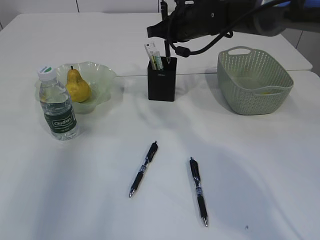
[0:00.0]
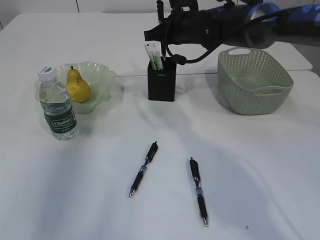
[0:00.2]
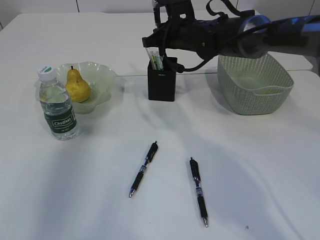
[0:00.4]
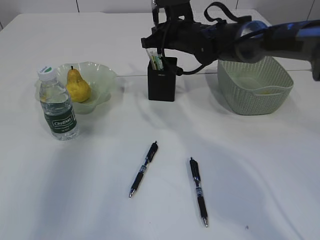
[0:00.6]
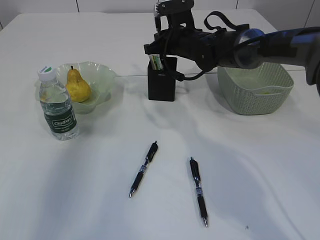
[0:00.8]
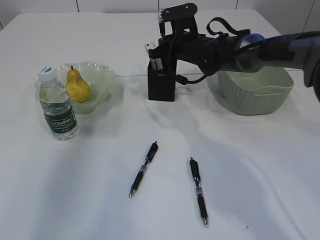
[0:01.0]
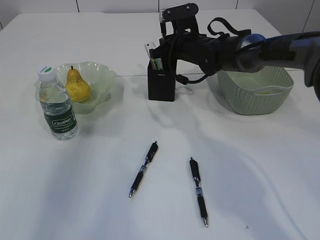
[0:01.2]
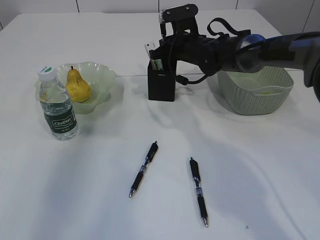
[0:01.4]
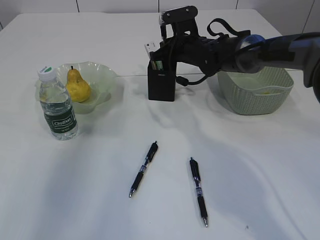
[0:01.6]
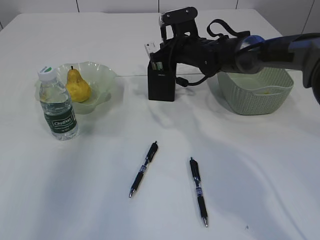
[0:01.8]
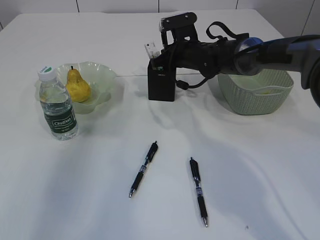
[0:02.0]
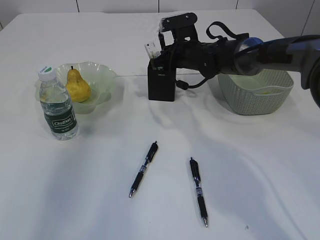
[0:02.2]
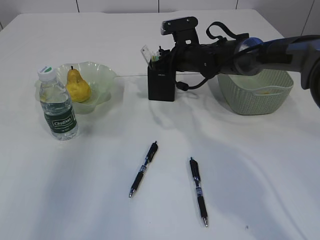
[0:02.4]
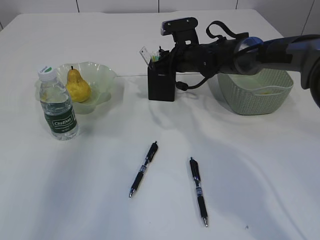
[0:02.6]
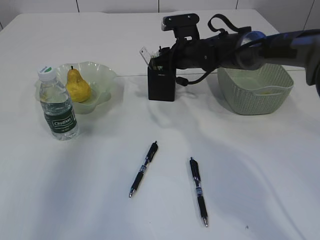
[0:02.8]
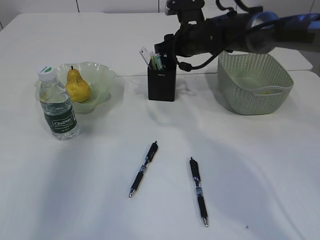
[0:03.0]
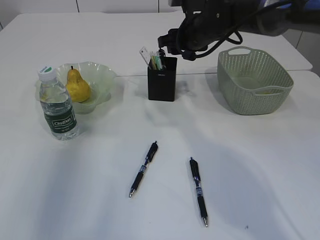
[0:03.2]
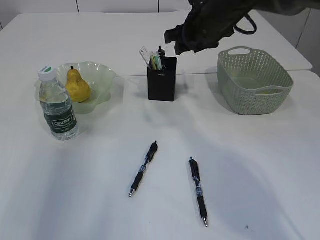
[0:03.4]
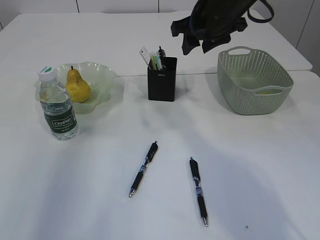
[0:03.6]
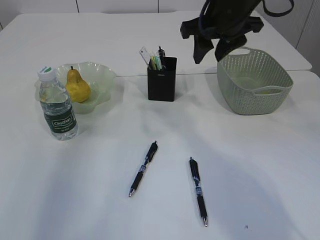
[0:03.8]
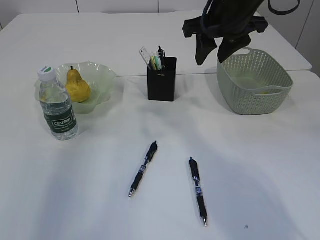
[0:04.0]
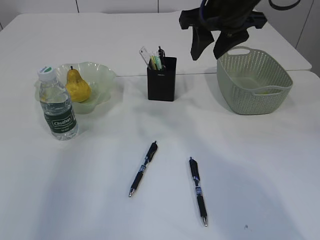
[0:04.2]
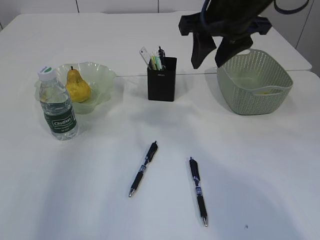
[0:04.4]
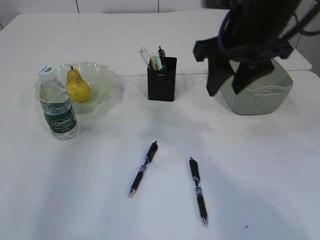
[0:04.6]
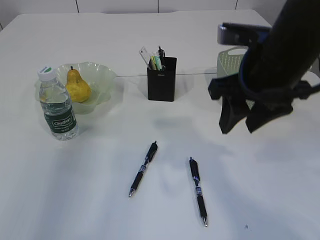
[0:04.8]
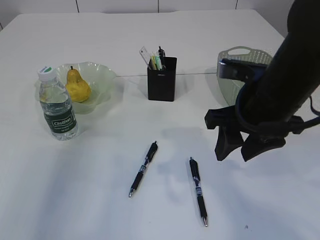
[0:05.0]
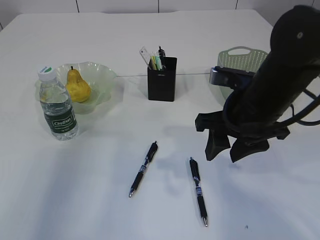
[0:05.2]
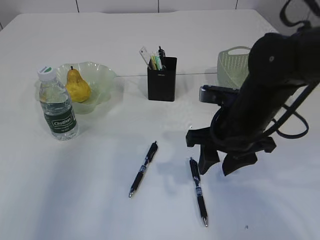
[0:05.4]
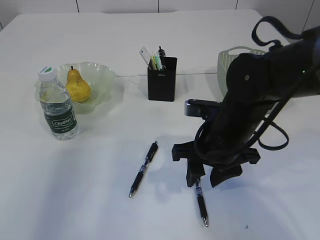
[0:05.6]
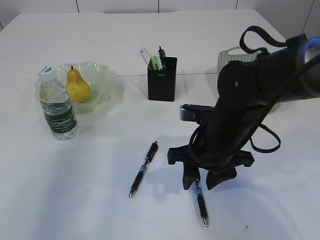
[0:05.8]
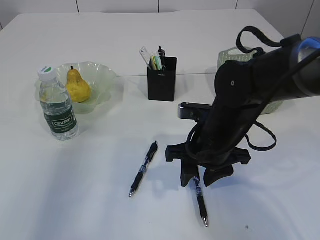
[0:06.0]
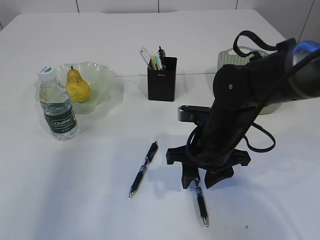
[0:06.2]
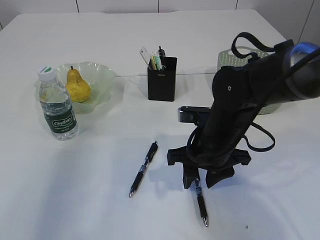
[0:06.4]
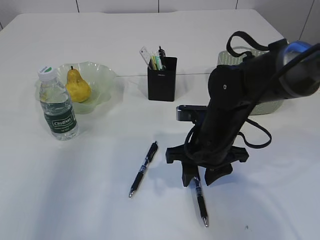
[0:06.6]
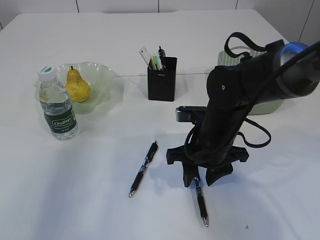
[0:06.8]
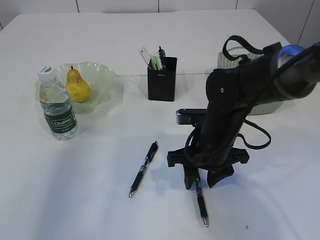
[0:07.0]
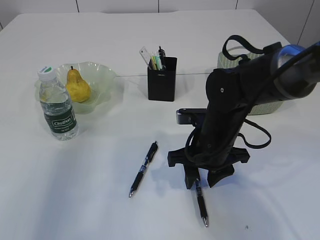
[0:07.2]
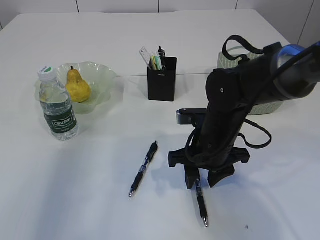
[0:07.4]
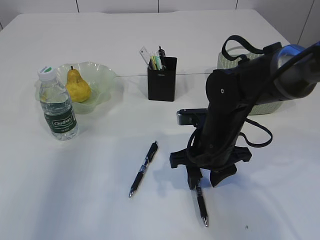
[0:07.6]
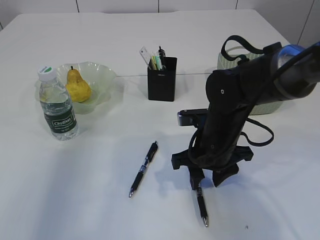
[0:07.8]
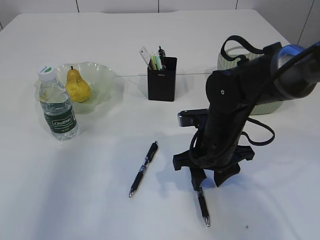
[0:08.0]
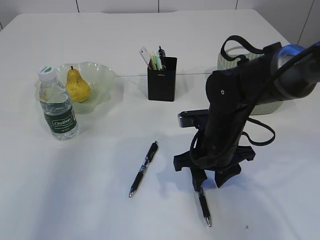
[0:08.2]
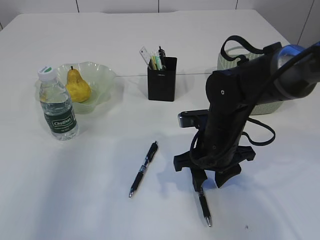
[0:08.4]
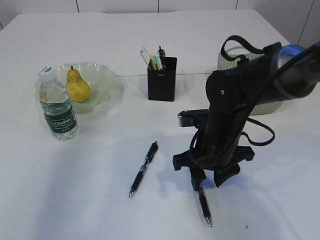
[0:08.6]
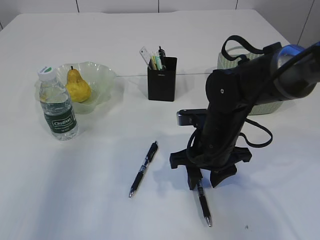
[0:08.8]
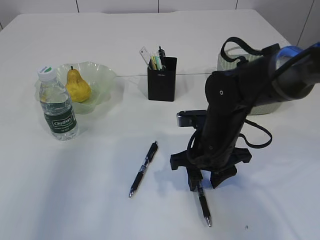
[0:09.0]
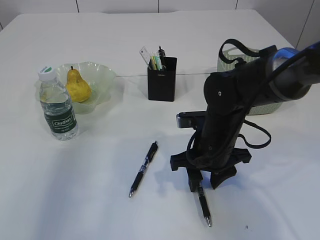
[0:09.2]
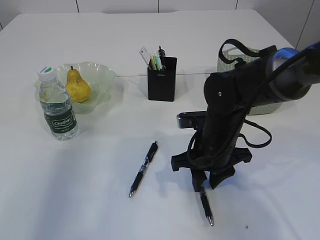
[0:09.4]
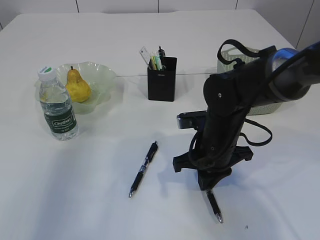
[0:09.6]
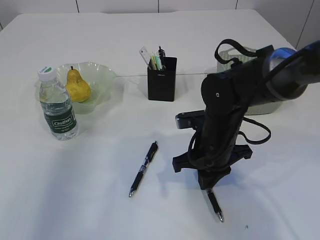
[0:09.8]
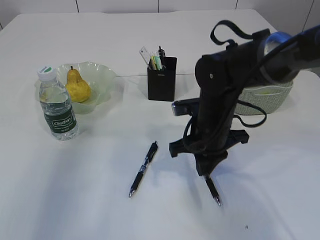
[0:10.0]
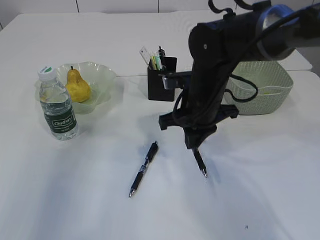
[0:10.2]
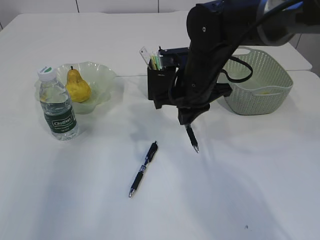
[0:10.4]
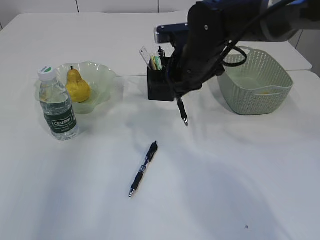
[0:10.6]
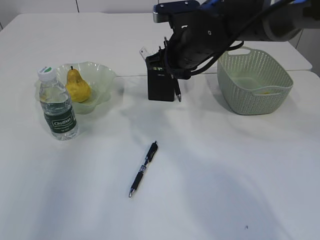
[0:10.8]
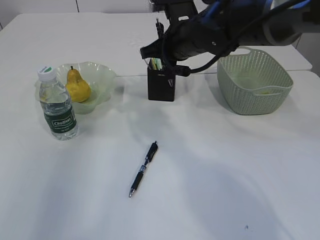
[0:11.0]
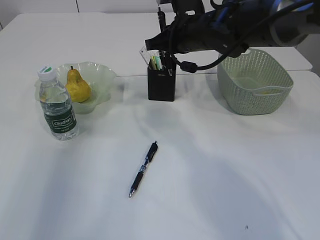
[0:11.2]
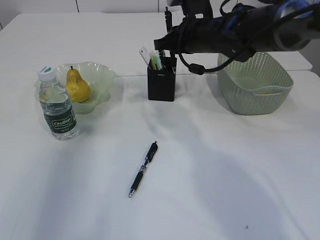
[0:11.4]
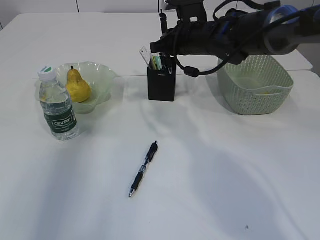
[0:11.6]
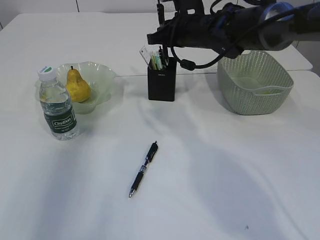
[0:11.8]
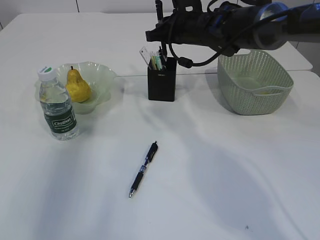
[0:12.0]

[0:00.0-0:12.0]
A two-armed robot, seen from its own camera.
Step, 0:00.0 to 0:03.2: Place the pen into the pen holder.
Step, 0:03.4 to 0:10.2: Pick up the pen with right arm.
0:00.0 to 0:01.6: The right gripper is displaced downward by approximately 10 cm.
0:01.6 to 0:03.0: The right gripper opens its fingers.
0:03.0 to 0:04.4: The right gripper heads backward and upward, covering roughly 20 cm.
0:04.4 to 0:06.0: The right gripper shifts some 20 cm downward.
0:06.0 to 0:07.6: The grippers move only a little.
0:07.6 to 0:09.0: Both grippers stay about where they are.
0:09.0 to 0:10.4: The right gripper shifts roughly 10 cm upward and forward, and closes its fingers.
0:10.4 to 0:12.0: The right gripper goes approximately 10 cm forward.

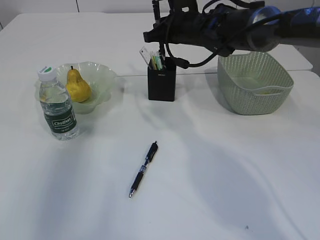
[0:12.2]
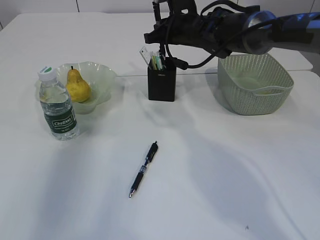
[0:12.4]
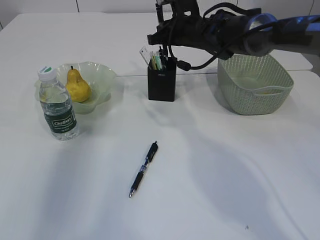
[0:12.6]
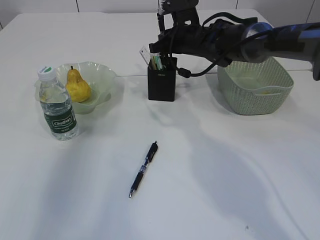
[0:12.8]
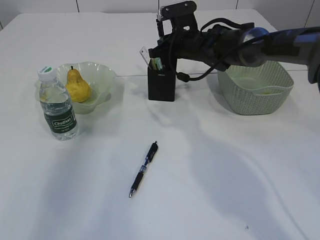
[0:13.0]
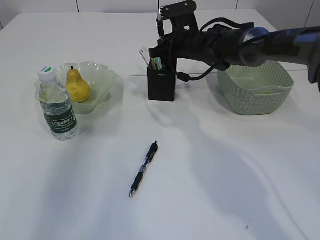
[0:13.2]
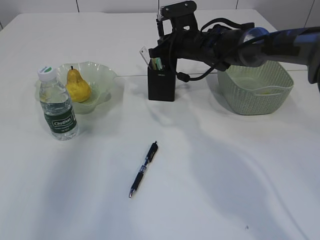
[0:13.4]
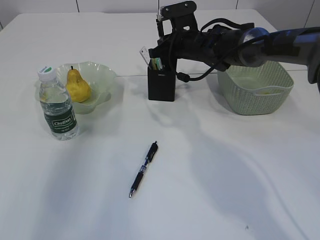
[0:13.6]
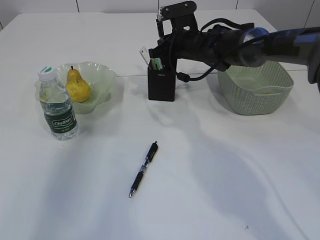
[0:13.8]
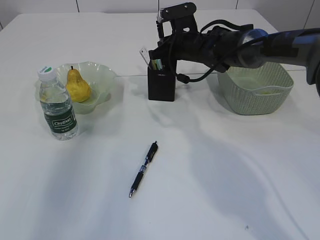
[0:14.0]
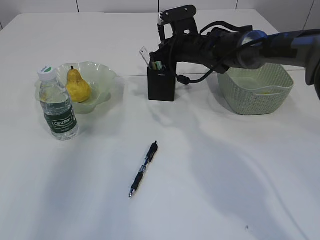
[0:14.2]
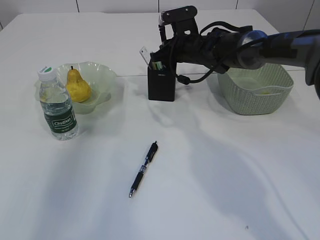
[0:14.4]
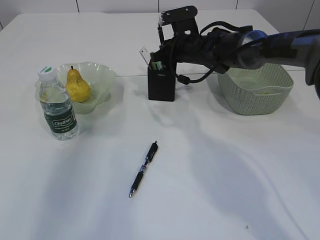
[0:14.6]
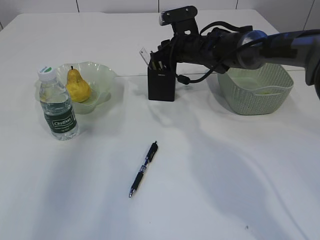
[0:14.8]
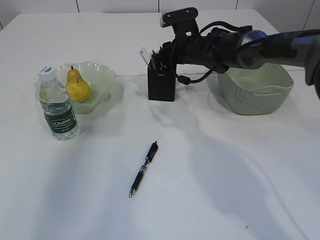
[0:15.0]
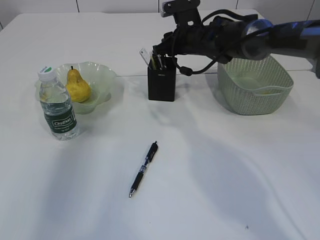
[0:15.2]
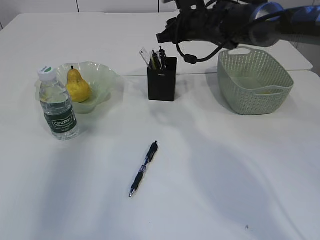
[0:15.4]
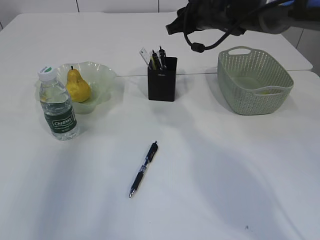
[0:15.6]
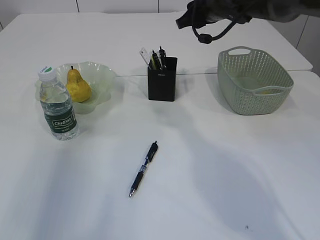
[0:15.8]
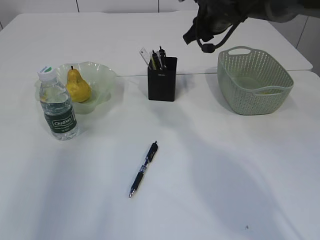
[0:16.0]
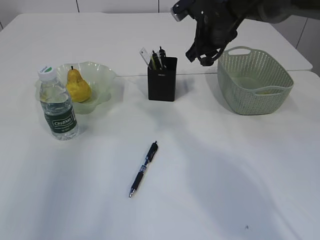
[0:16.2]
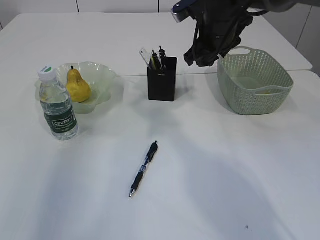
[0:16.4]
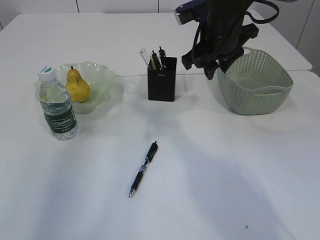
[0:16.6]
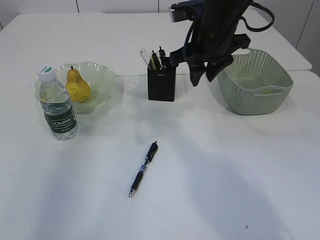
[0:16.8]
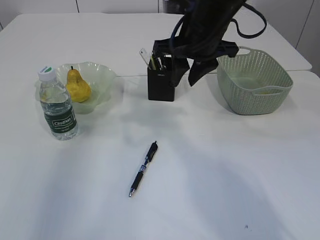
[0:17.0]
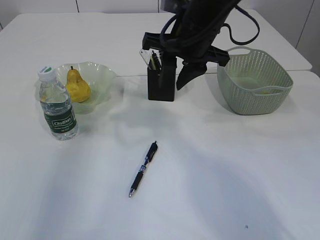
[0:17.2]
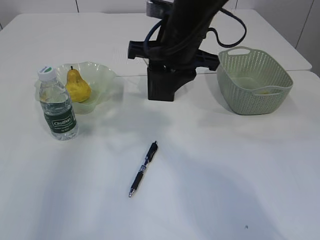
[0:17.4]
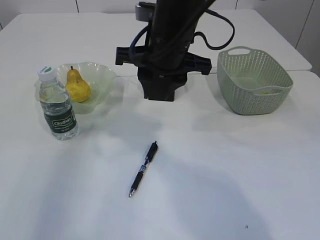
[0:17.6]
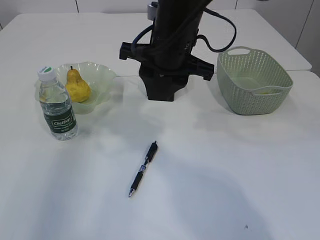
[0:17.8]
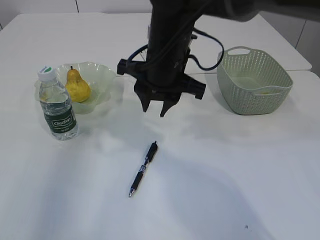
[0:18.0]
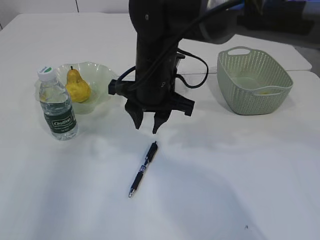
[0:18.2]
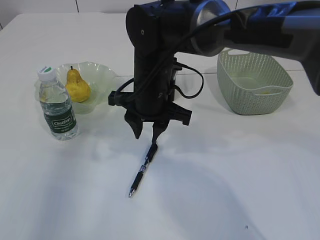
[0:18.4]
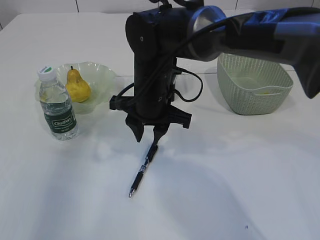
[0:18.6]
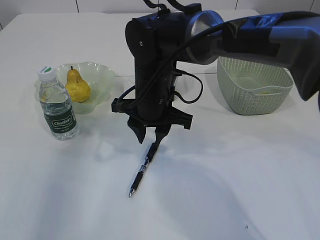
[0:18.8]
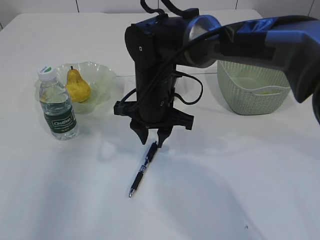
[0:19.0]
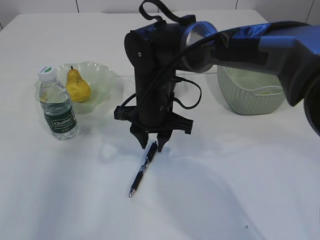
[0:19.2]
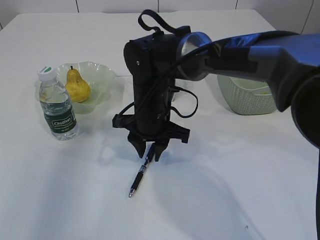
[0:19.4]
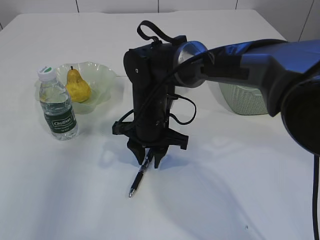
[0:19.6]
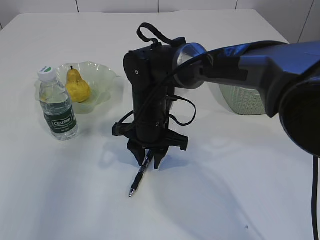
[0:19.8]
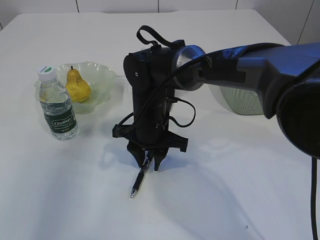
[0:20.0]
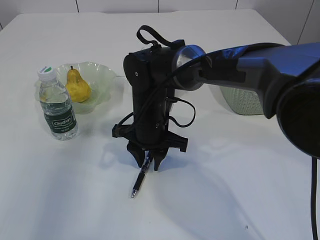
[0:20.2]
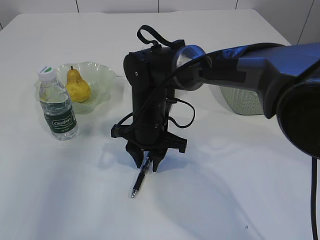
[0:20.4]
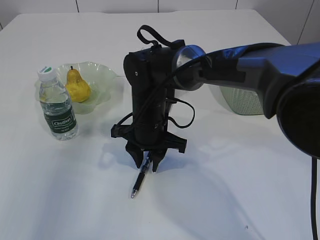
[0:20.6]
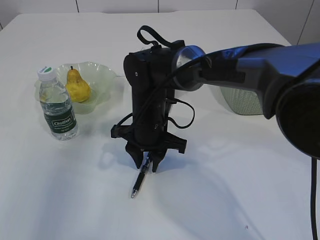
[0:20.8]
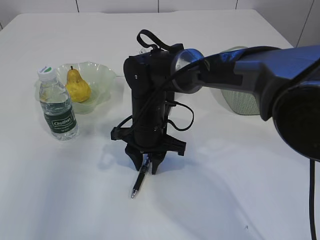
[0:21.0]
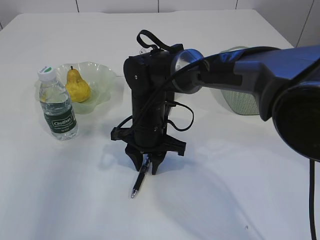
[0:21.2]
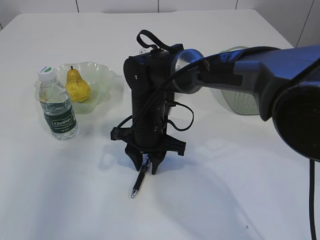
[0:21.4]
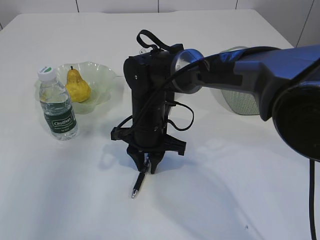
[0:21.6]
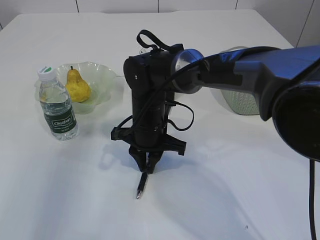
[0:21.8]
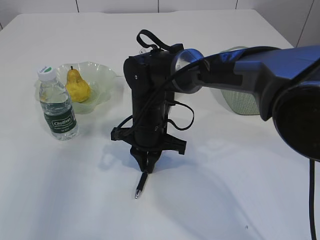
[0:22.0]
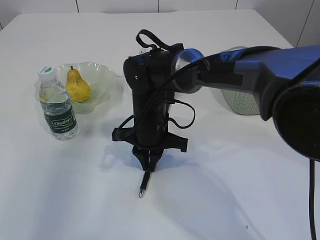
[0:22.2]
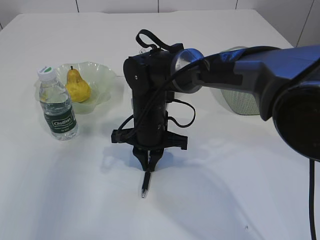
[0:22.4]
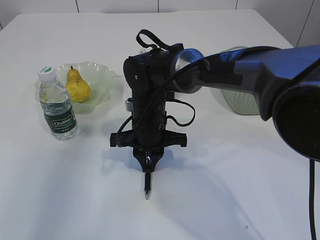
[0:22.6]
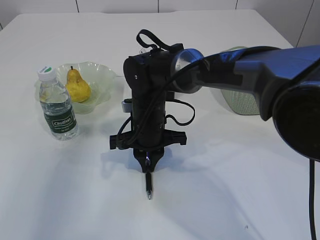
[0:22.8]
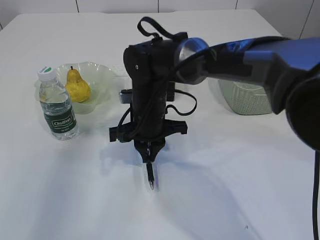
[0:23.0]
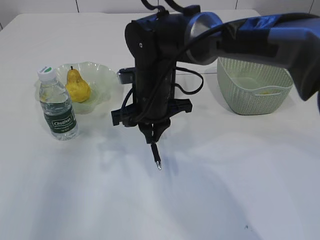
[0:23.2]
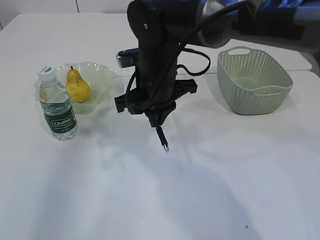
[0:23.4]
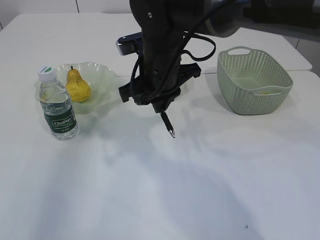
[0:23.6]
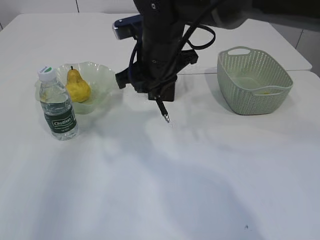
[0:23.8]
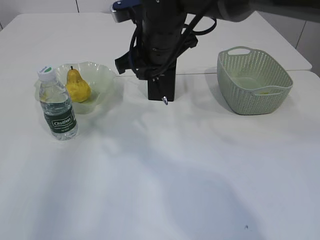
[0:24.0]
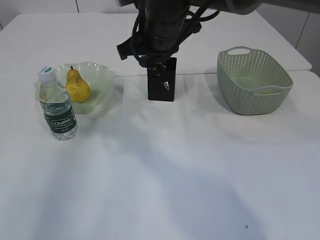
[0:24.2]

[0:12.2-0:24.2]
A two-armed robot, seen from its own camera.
Step, 0:12.2 to 0:15.4: Place the pen into the pen holder.
Step, 0:15.6 to 0:23.2: Pick up the pen with right arm.
0:12.2 to 0:13.8: The right gripper changes place by some 5 cm.
0:13.8 to 0:15.2: The right gripper opens its fingers.
0:15.2 to 0:16.6: The right gripper moves backward and upward, roughly 15 cm.
0:16.6 to 0:18.2: The right gripper travels to the left and backward by about 10 cm.
0:18.2 to 0:19.8: The right gripper travels downward by approximately 10 cm.
0:19.8 to 0:21.2: The two grippers keep their place.
0:21.2 to 0:22.6: The right gripper closes its fingers.
0:22.6 to 0:24.2: The right gripper heads upward, covering approximately 15 cm.
